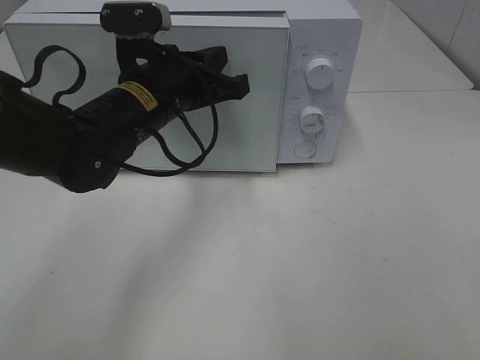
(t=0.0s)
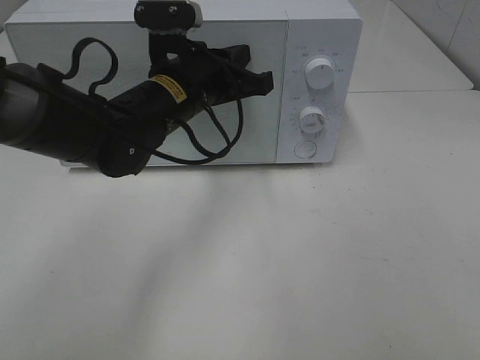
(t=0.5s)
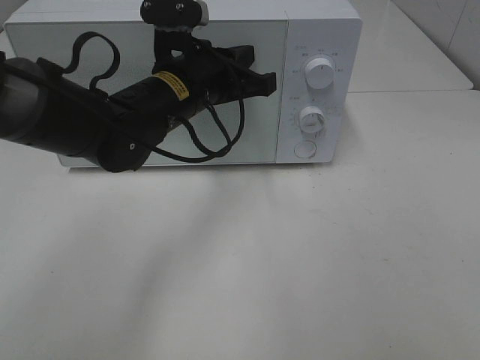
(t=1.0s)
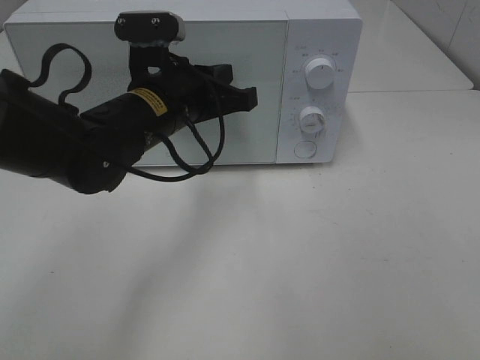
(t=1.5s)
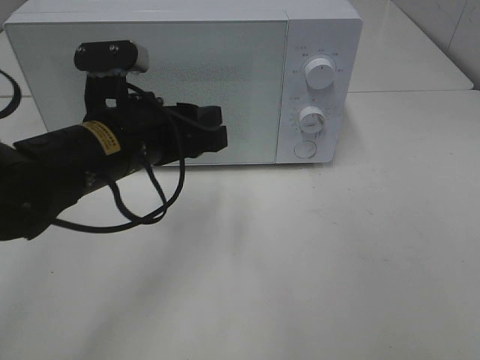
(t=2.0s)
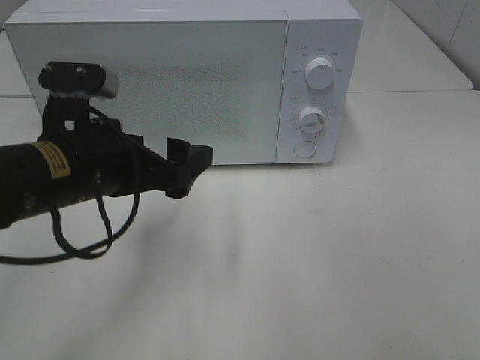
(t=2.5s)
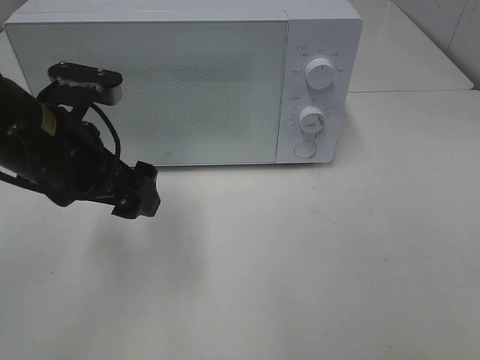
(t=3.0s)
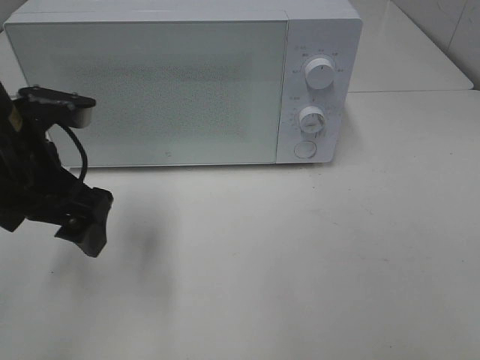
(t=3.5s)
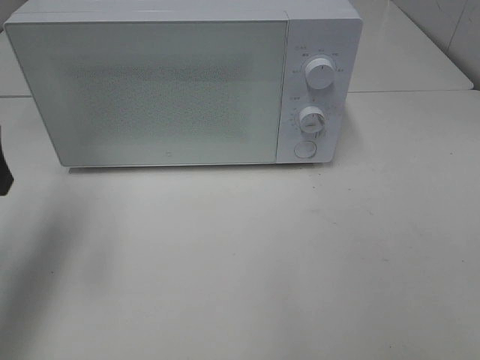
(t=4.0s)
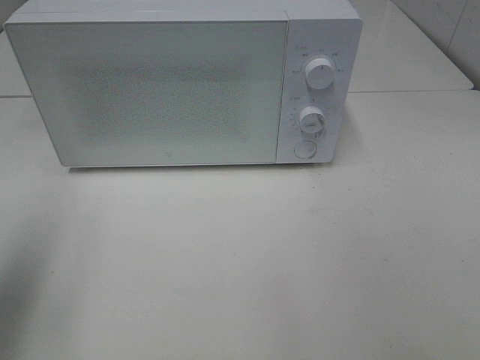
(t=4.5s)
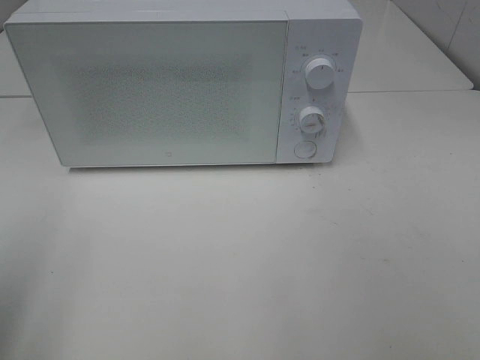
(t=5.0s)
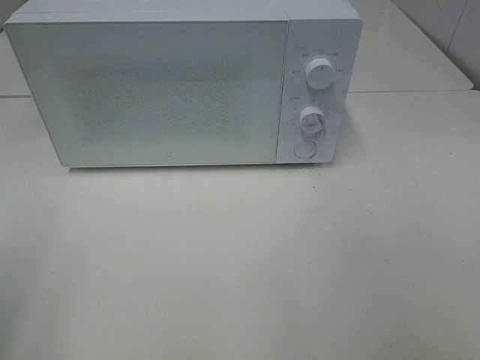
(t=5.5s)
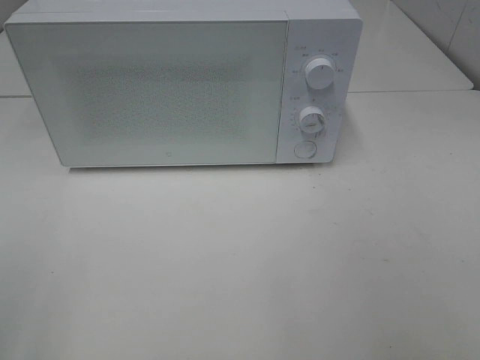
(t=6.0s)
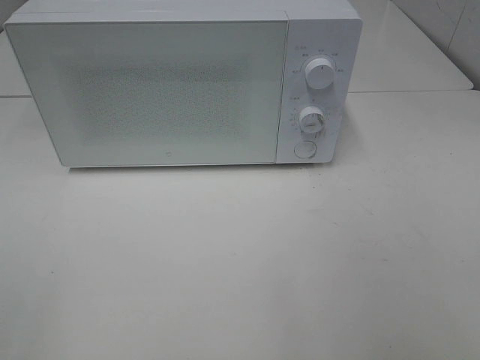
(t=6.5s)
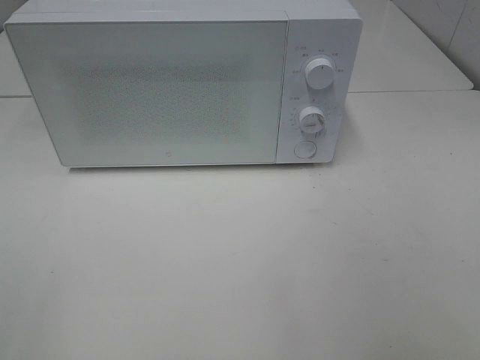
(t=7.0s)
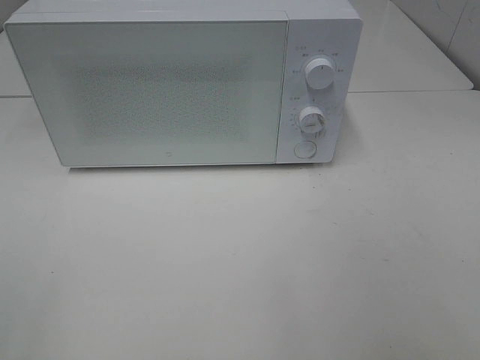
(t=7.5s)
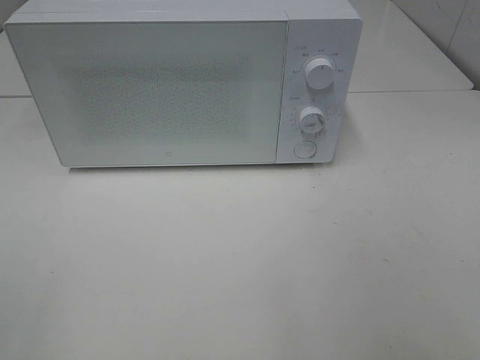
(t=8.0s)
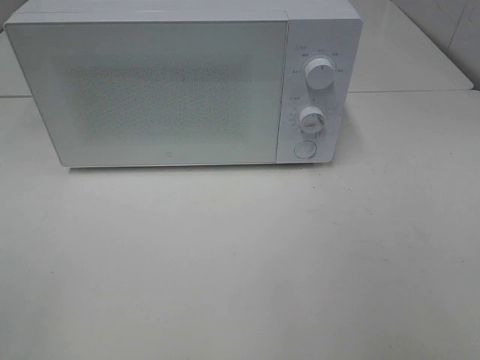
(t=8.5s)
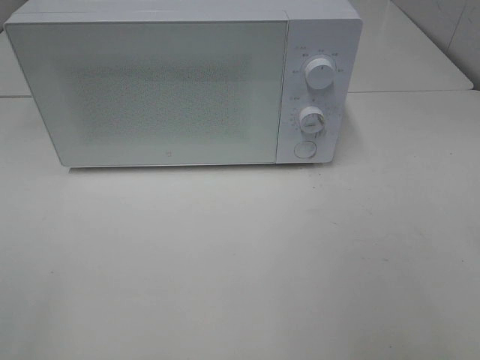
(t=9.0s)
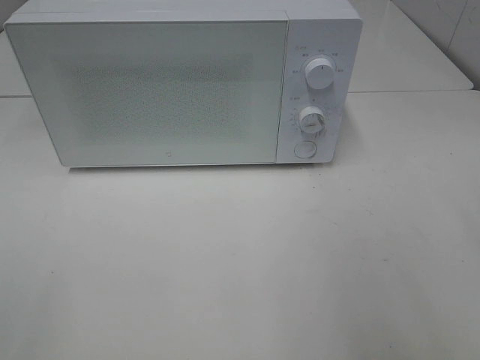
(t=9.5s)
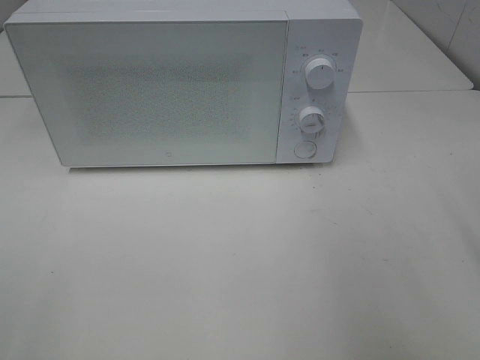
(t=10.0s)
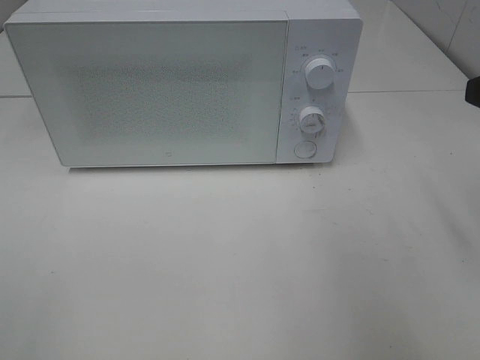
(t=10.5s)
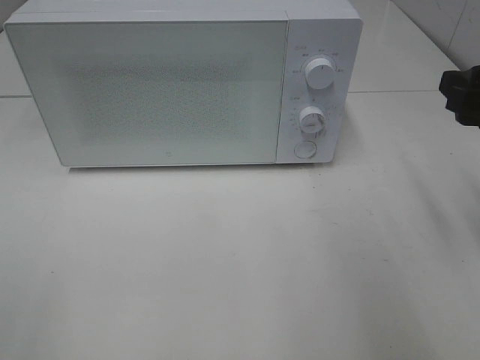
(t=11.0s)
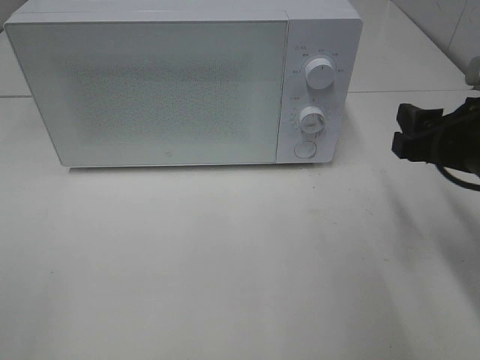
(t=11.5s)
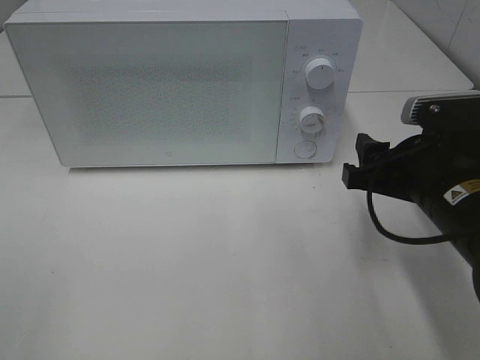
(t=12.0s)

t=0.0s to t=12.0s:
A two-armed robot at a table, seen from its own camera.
Task of the whole recording: Heat Sandwich.
t=0.0s to t=2.0s: The left gripper is displaced backward by approximately 5 cm, and opens its fingers.
t=2.0s to t=4.0s: The left gripper goes some 20 cm to the left and upward, and opens up.
t=4.0s to t=6.0s: The left gripper shifts roughly 20 cm backward.
t=10.0s to t=12.0s: The right gripper goes about 15 cm downward, to the left and forward.

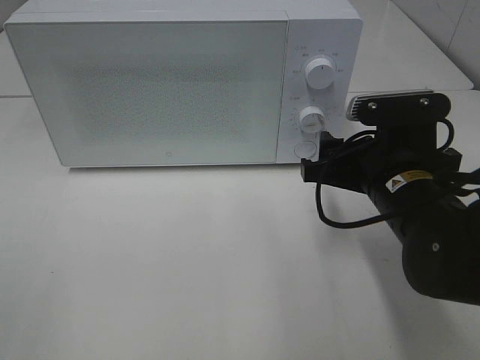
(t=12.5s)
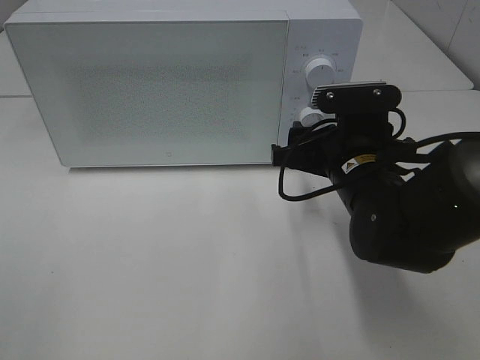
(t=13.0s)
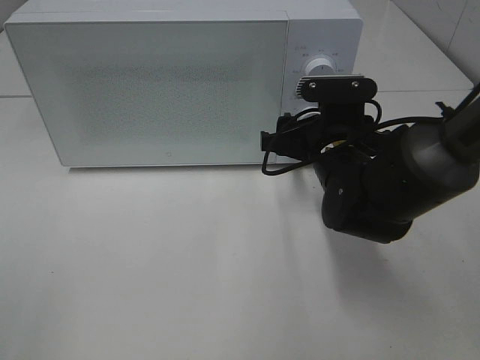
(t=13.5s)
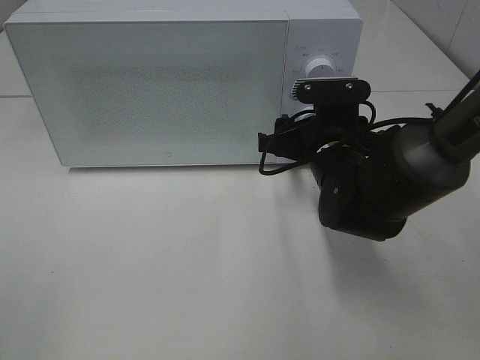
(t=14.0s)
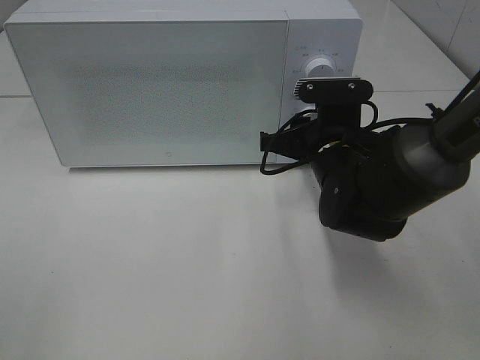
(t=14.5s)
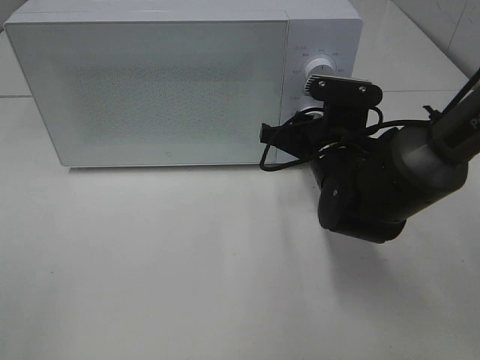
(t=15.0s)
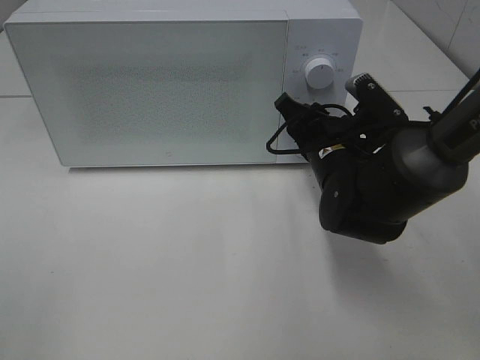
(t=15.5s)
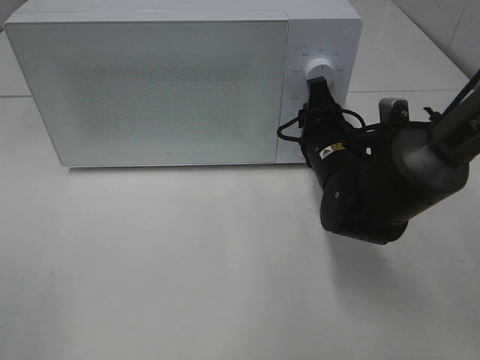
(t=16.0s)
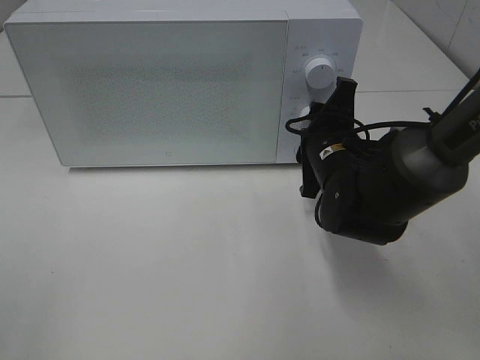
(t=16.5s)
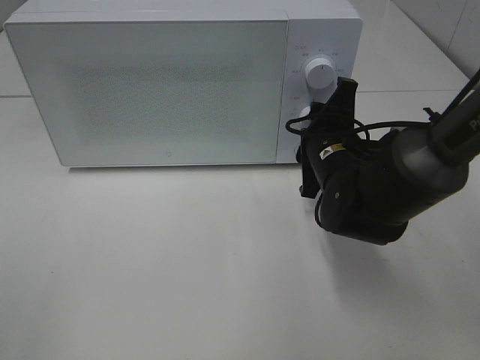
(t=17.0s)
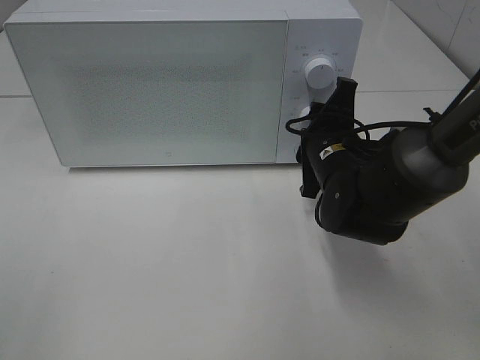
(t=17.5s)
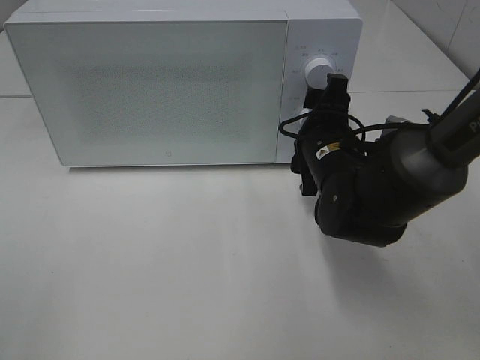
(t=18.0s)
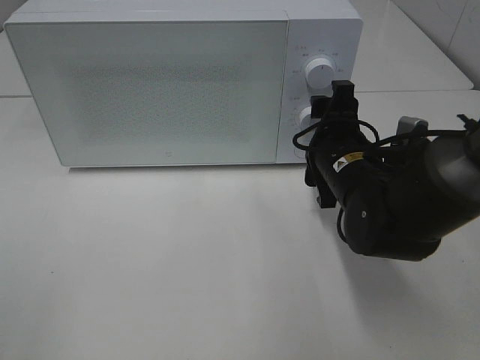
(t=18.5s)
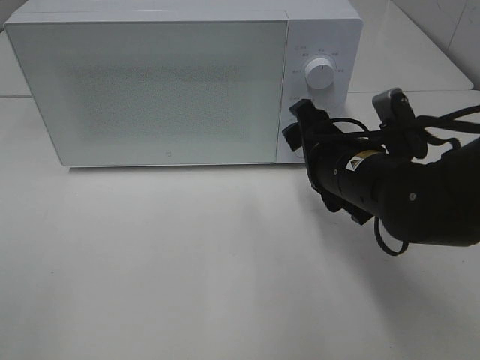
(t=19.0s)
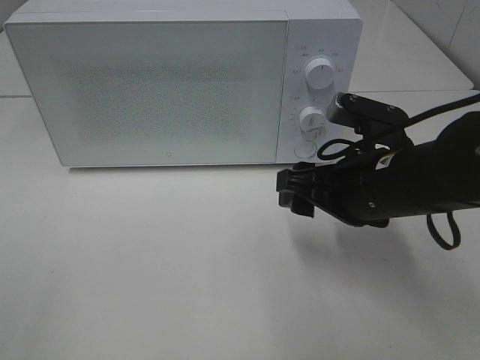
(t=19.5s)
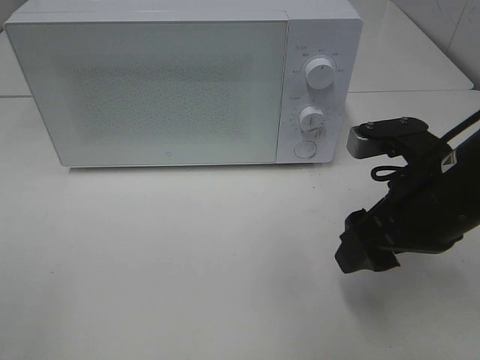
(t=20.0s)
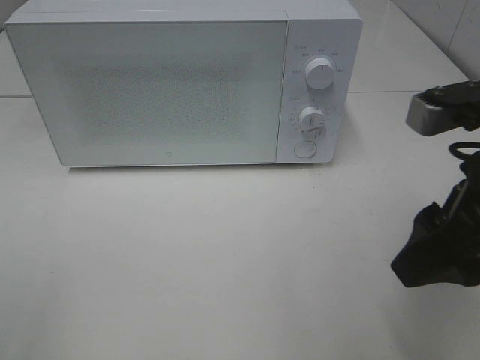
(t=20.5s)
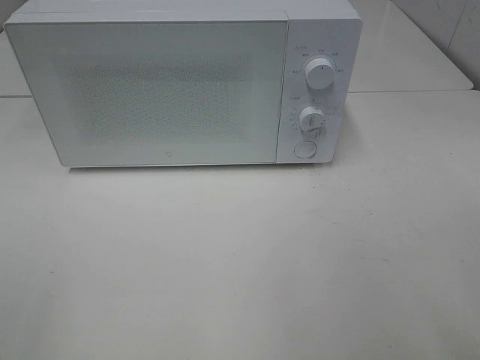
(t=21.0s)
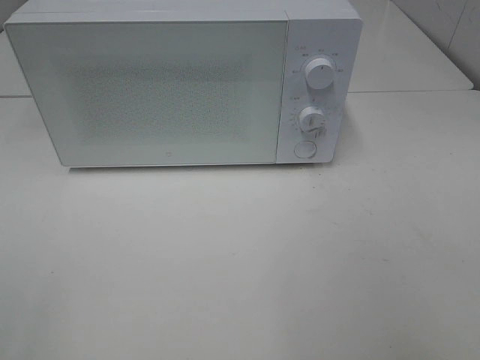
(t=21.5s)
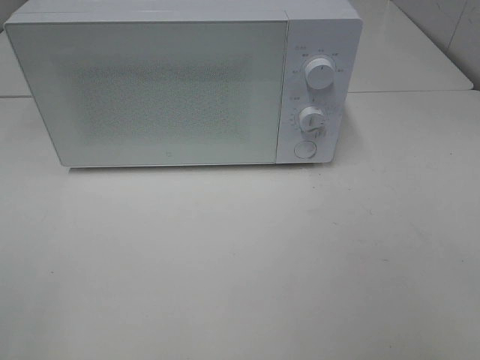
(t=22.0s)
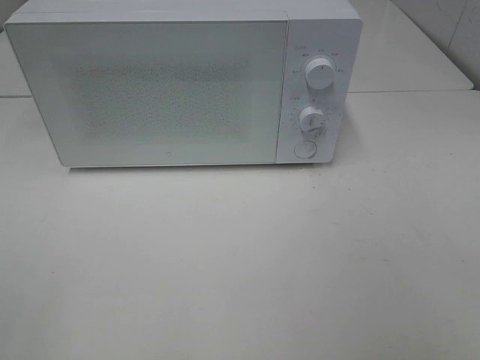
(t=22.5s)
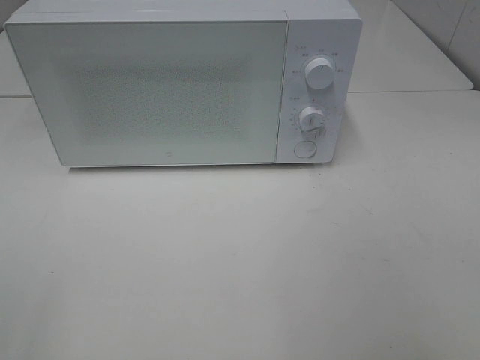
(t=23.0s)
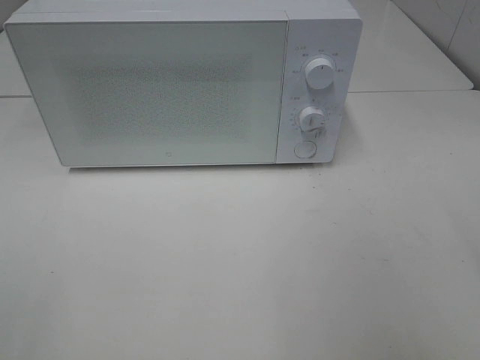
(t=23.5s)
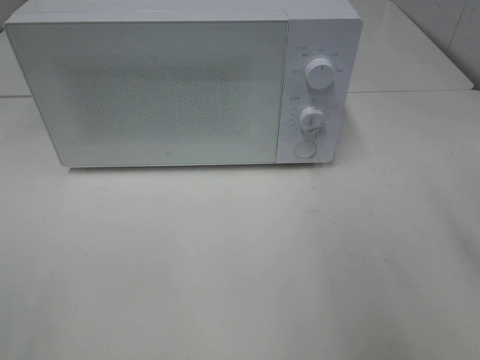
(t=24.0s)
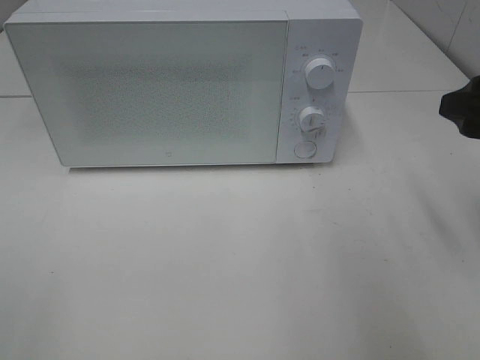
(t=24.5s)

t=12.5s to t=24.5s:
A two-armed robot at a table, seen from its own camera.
Task of the whole recording: Heat Sandwich.
Step, t=12.5s to t=18.5s: Right hand: twist timer button.
t=12.5s to t=14.5s: The right gripper goes about 10 cm forward, and closes its fingers.
t=16.5s to t=18.5s: The right gripper opens up.
t=18.5s to t=20.5s: The right gripper heads backward, upward and to the right, covering roughly 20 cm.
t=20.5s to t=22.5s: The right gripper goes about 20 cm backward and to the right.
t=22.5s to t=24.5s: The right gripper goes approximately 20 cm forward.

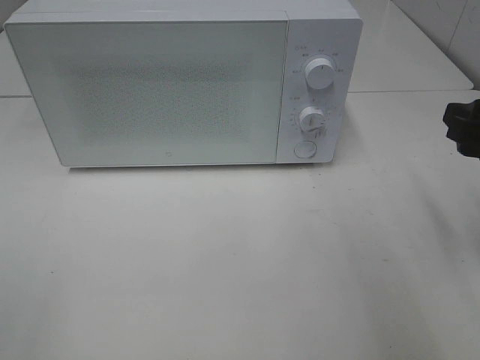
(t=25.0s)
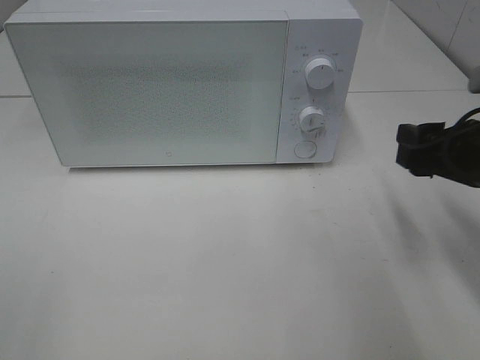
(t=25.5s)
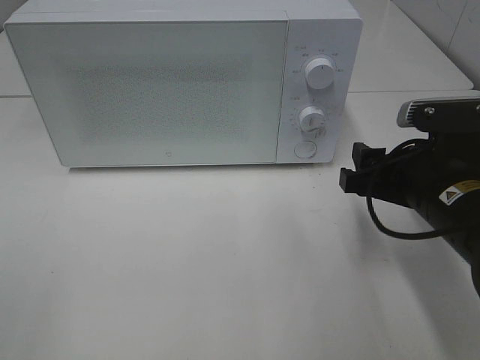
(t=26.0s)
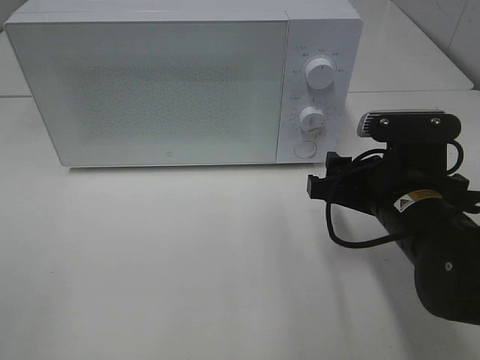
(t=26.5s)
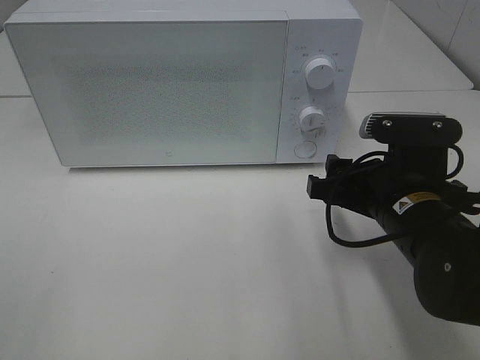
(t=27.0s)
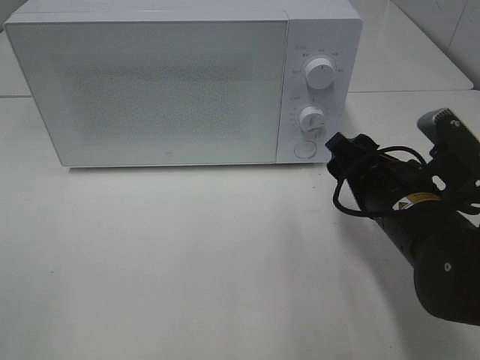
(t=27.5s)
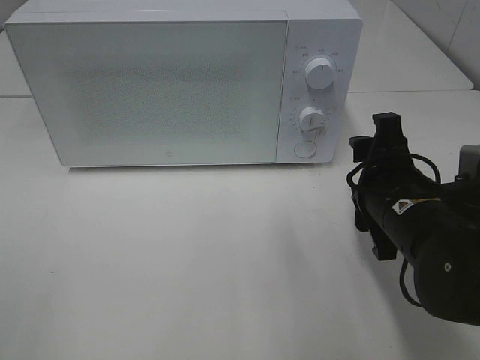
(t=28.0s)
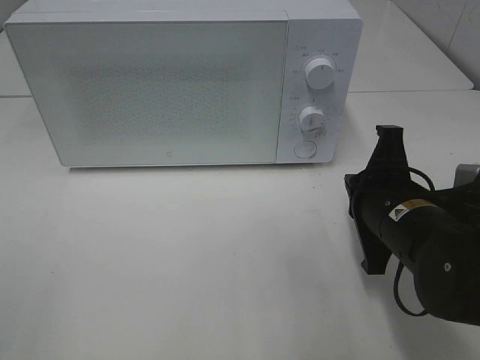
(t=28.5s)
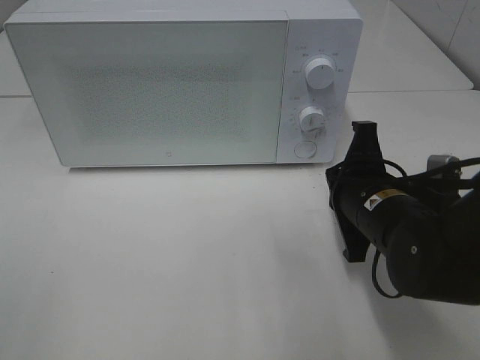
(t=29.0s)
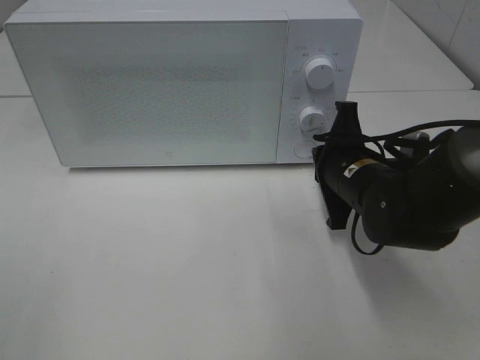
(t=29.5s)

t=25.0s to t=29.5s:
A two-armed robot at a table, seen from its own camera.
Task of the whole recording: Heat Sandwich.
t=25.0s to t=27.0s: The right gripper is displaced to the left and downward by roughly 15 cm.
t=27.0s to t=29.5s: The right gripper moves forward, approximately 5 cm, and closes.